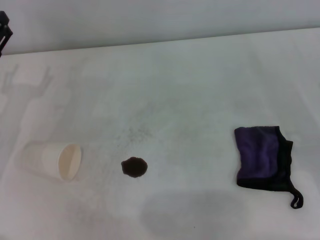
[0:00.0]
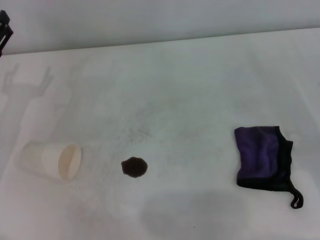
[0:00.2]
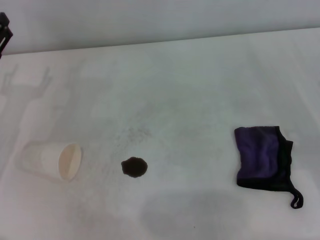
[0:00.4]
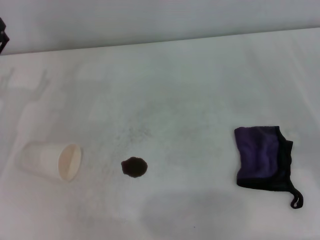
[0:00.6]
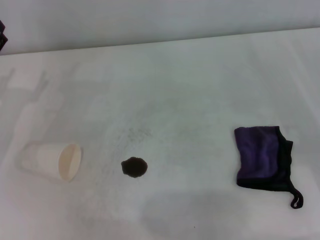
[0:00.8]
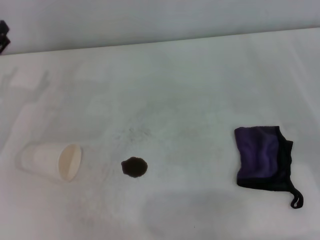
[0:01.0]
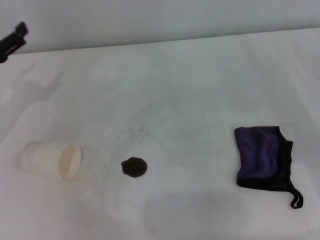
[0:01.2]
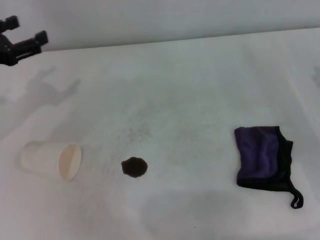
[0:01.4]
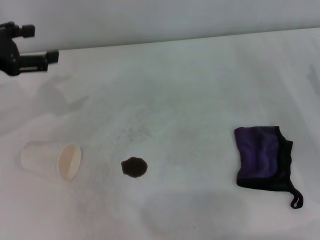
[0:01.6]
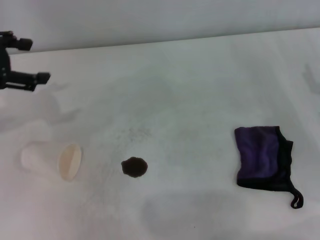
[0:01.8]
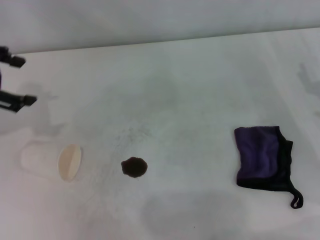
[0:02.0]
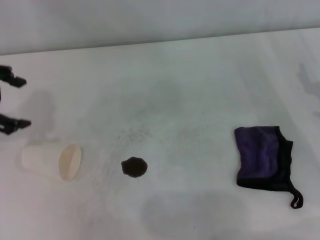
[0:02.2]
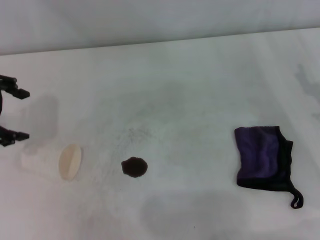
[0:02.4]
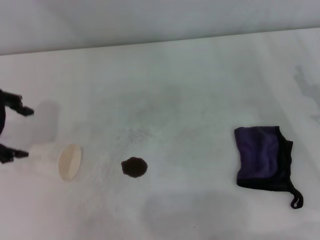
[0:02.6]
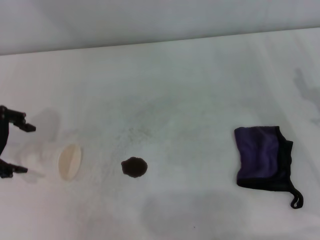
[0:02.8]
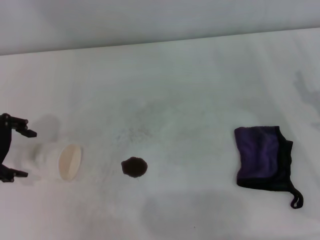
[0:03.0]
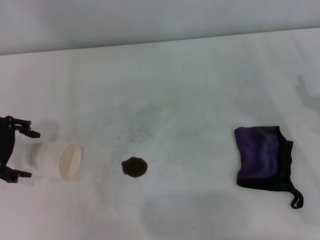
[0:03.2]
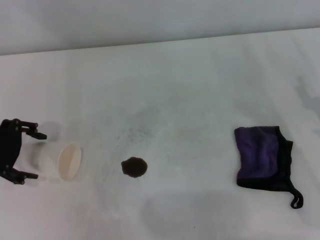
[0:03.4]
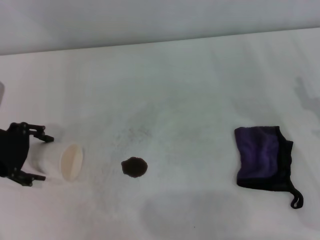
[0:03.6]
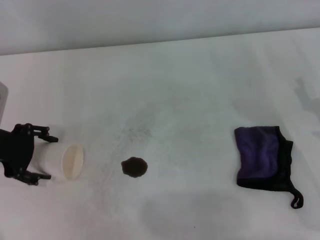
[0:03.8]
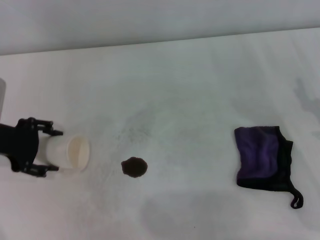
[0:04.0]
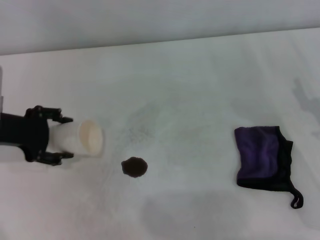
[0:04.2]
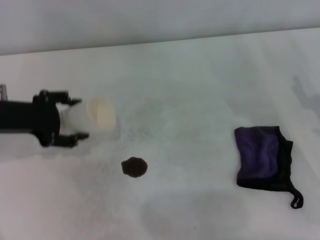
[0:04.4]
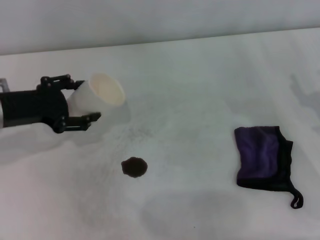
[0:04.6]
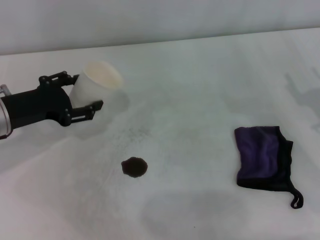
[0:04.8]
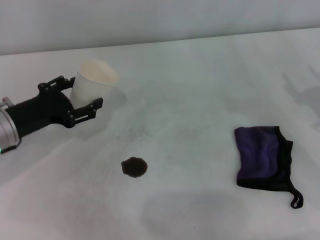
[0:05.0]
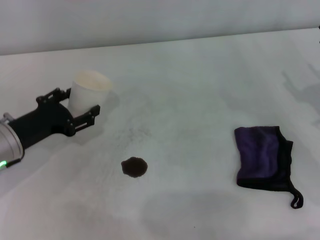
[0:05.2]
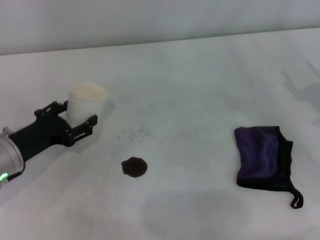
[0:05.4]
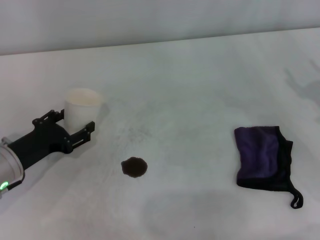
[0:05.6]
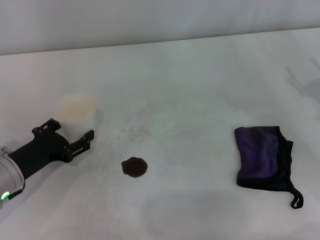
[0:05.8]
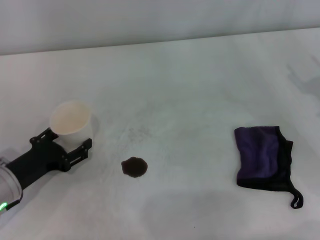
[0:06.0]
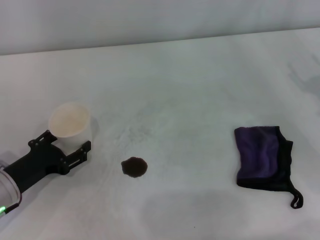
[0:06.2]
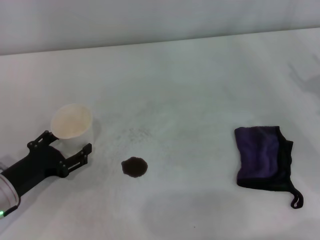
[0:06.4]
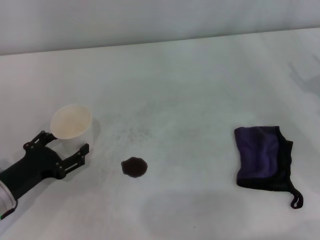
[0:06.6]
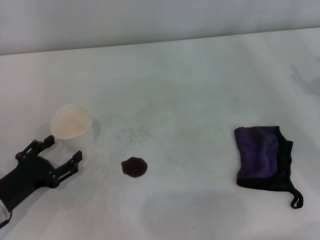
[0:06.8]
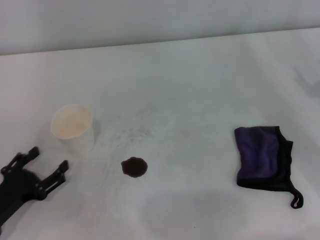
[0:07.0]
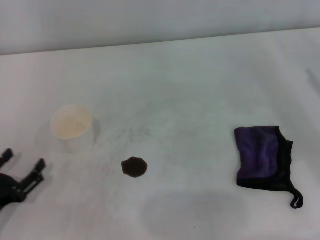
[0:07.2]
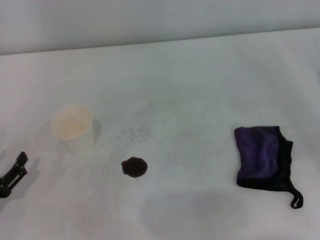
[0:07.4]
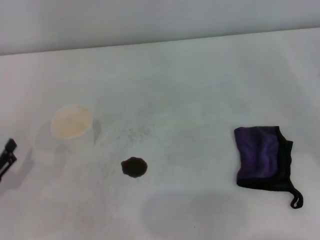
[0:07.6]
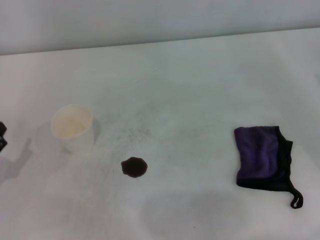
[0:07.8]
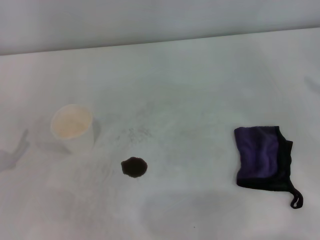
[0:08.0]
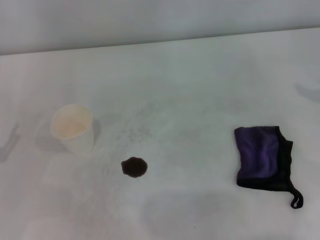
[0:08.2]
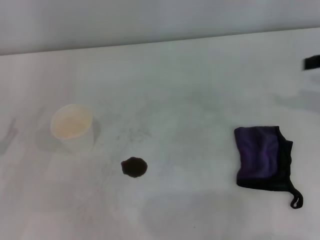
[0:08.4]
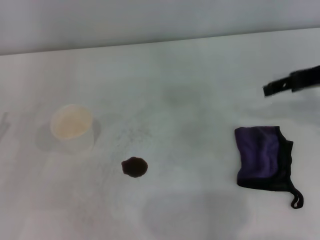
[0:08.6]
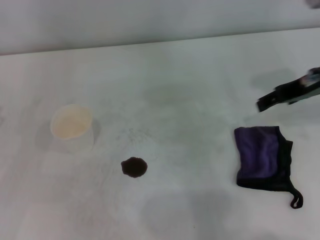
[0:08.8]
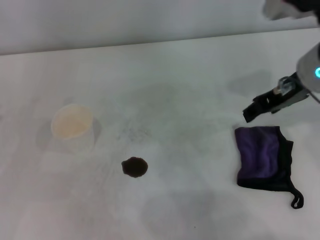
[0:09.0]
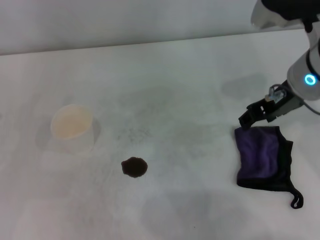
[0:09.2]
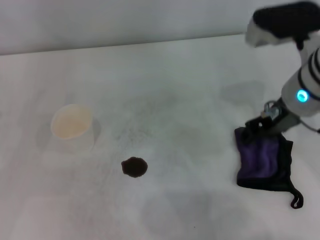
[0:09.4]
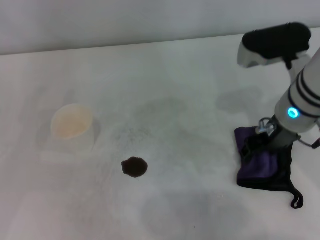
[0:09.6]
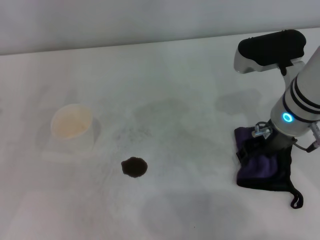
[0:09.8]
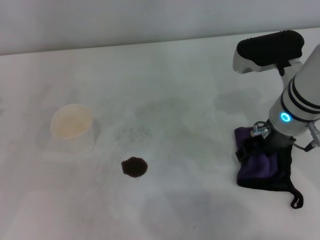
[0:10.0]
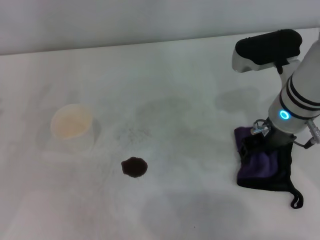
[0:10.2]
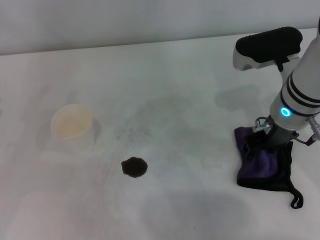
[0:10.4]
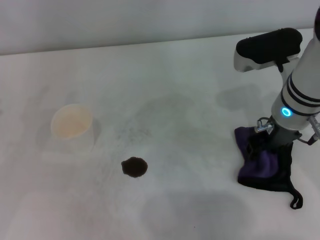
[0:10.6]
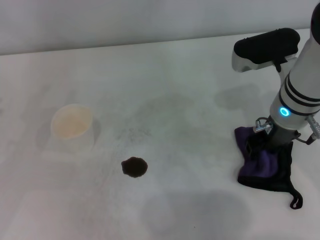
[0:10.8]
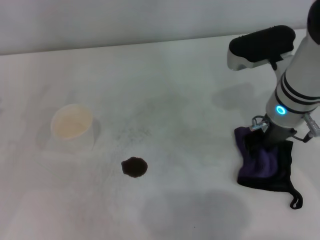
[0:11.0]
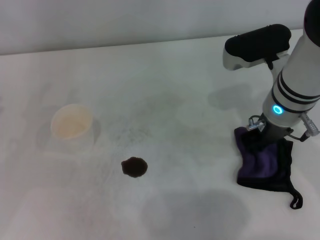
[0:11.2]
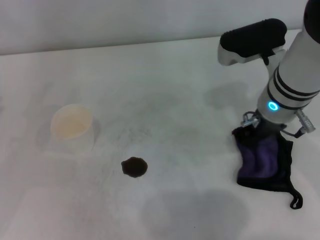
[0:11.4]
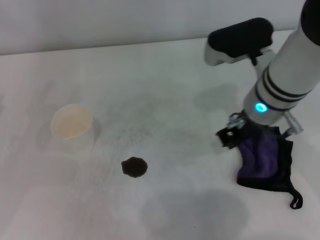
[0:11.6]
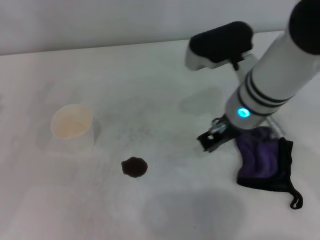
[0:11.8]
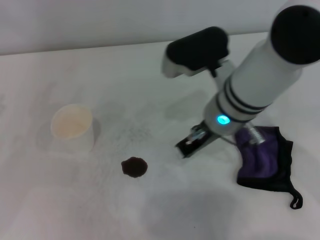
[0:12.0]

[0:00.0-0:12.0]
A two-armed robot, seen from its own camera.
Step, 0:00.0 to 0:03.8: Grasp the paper cup with the left gripper.
Step, 0:04.0 to 0:06.6: Stand the paper cup upright with the left gripper.
0:00.0 to 0:01.6: The left gripper moves upward, about 10 cm.
0:04.4 to 0:06.0: The left gripper travels downward and backward by about 15 cm.
0:06.0 to 0:07.6: The left gripper travels backward and to the left by approximately 10 cm.
0:07.6 to 0:09.0: The left gripper travels upward and forward by roughly 10 cm, while the right gripper shifts approximately 25 cm to the left and upward.
0:09.0 to 0:10.4: The right gripper is displaced downward by some 5 cm.
0:10.4 to 0:12.0: The right gripper goes about 10 cm to the left, and closes its fingers.

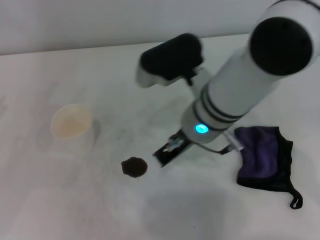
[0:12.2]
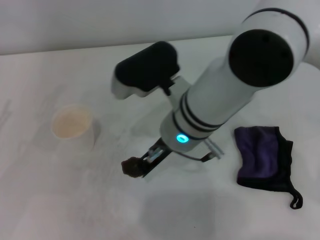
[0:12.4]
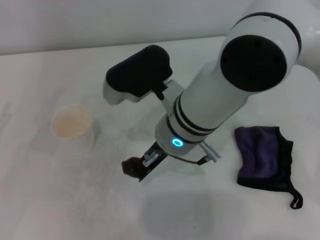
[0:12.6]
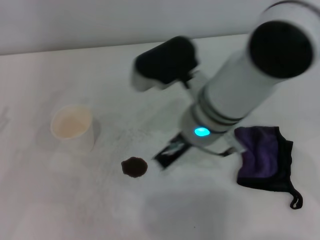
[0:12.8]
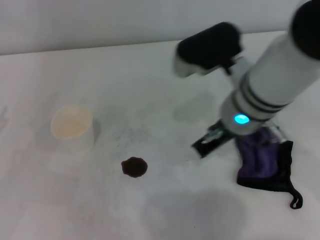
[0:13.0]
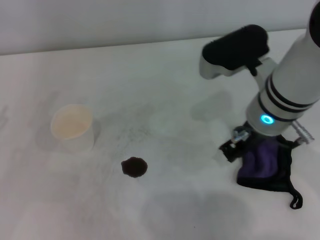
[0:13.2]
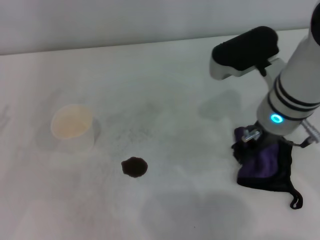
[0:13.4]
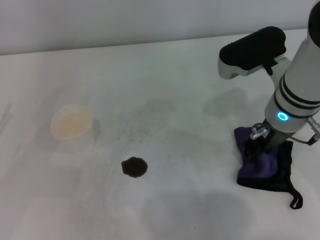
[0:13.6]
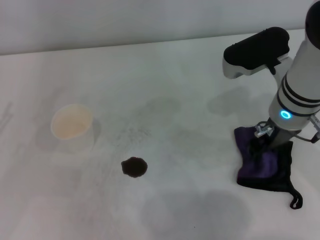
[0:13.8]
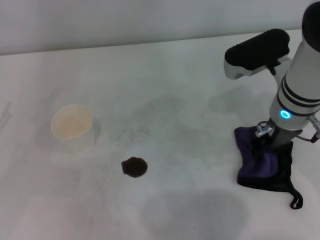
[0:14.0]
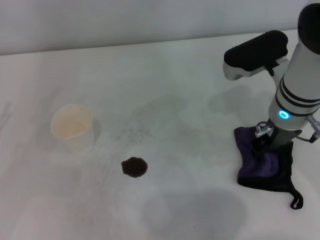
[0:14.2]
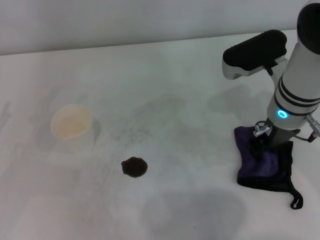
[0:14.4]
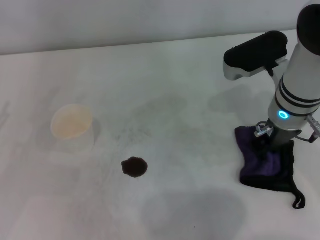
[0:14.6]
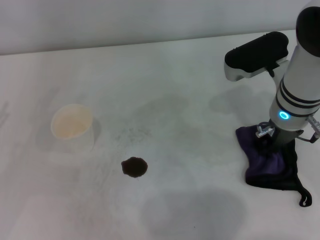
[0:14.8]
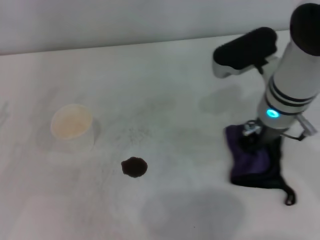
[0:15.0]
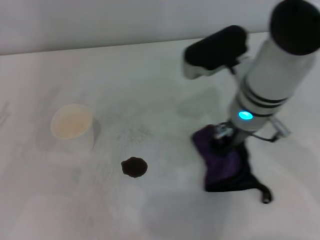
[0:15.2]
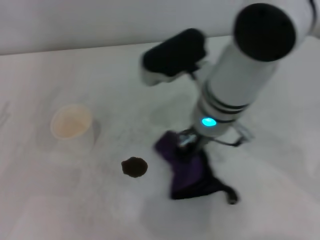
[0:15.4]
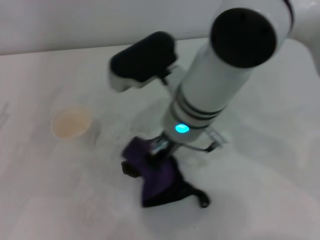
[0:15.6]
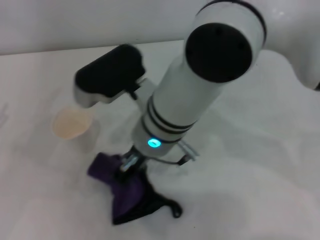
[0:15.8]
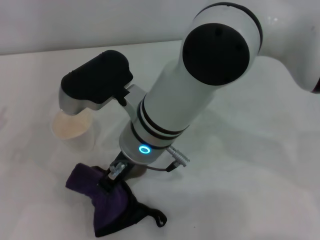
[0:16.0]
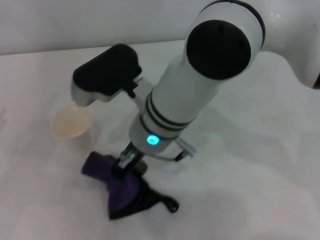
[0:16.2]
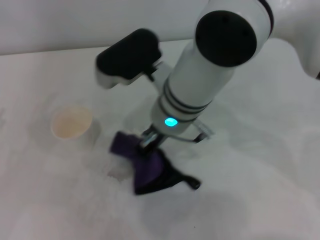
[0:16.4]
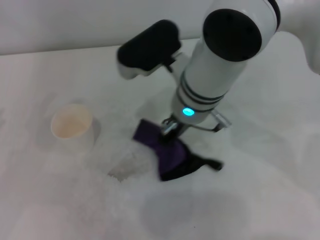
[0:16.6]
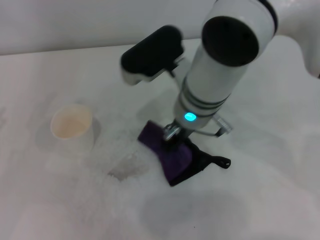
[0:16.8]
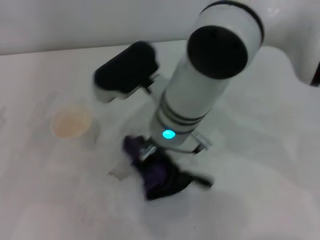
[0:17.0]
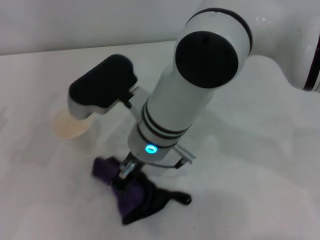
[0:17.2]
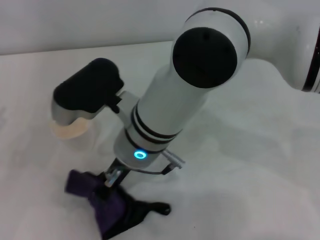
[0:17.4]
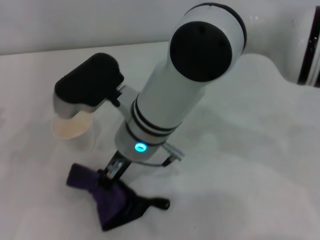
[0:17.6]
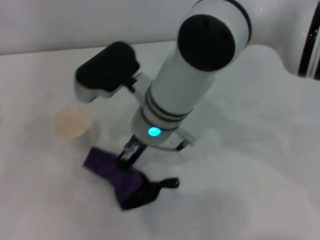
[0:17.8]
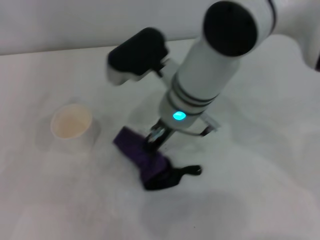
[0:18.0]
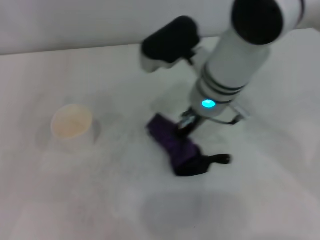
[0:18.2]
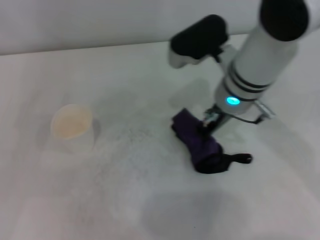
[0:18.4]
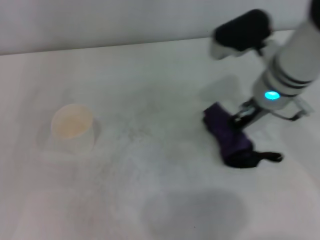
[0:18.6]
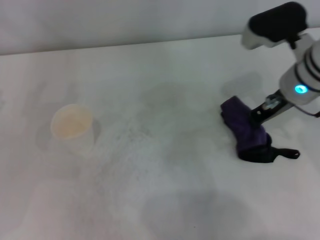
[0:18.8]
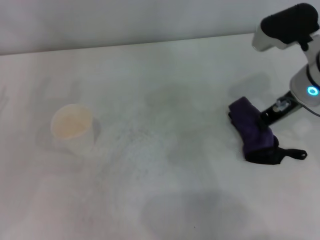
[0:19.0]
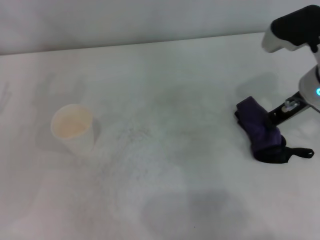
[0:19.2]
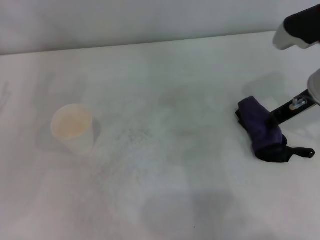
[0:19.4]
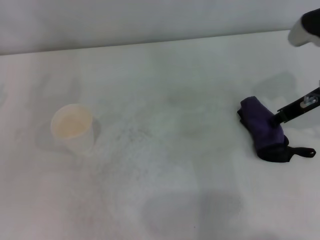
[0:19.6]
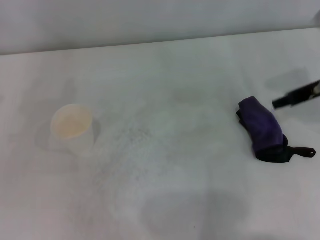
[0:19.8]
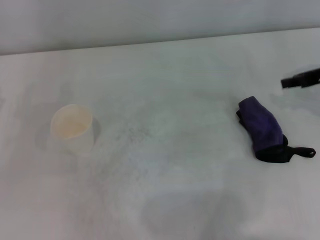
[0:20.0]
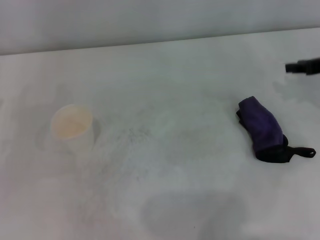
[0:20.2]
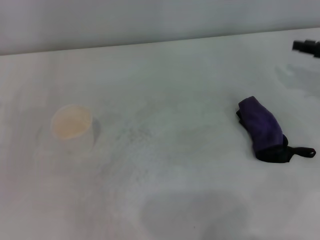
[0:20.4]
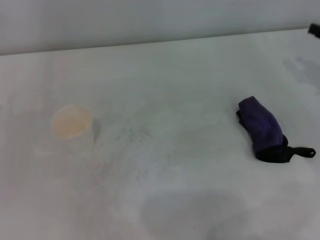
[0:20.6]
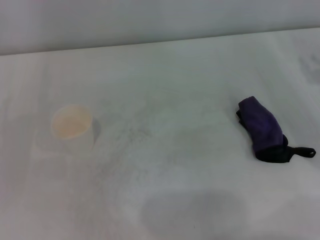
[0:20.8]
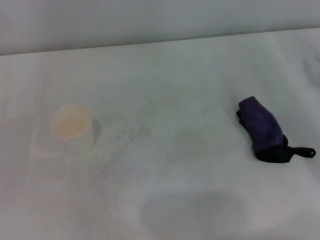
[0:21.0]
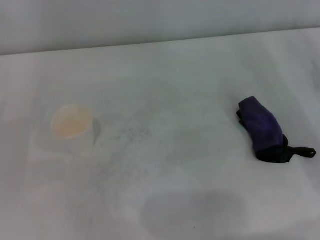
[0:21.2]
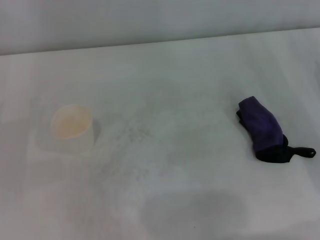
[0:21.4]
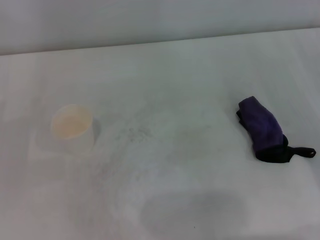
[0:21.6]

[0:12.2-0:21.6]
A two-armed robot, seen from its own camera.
Step, 0:12.2 to 0:14.6: Grasp the rag with the right gripper.
Step, 0:15.0 to 0:18.6: Wipe the stains off the table with the right gripper.
Step, 0:19.0 to 0:19.4: Place the rag on the table with the right gripper.
0:12.2 to 0:13.8: The right gripper moves to the right, some 10 cm, and opens its fingers.
0:13.8 to 0:15.4: The right gripper is displaced to the left by roughly 10 cm, and closes its fingers.
0:15.4 to 0:17.0: The right gripper travels to the left by roughly 5 cm.
0:17.0 to 0:18.4: The right gripper goes about 10 cm to the right.
0:18.4 to 0:20.0: The right gripper travels to the right by some 20 cm, and opens its fingers.
0:20.0 to 0:21.6: The right gripper goes about 10 cm downward and backward.
